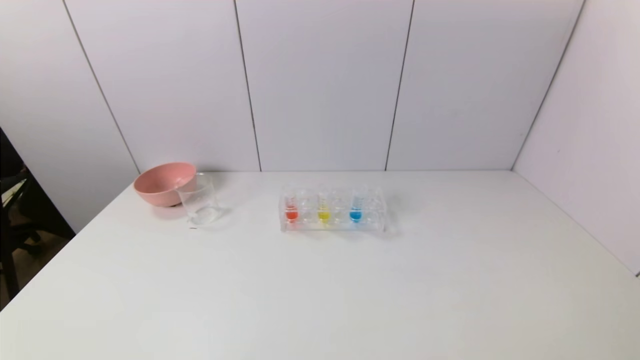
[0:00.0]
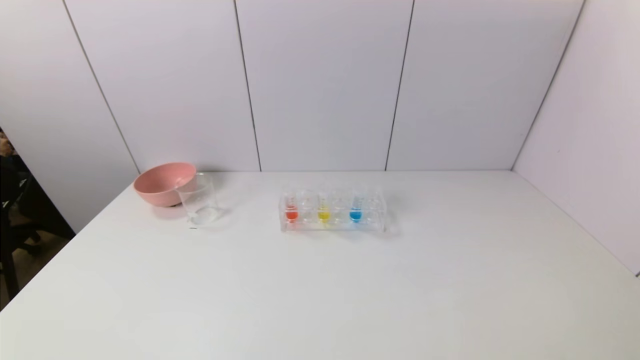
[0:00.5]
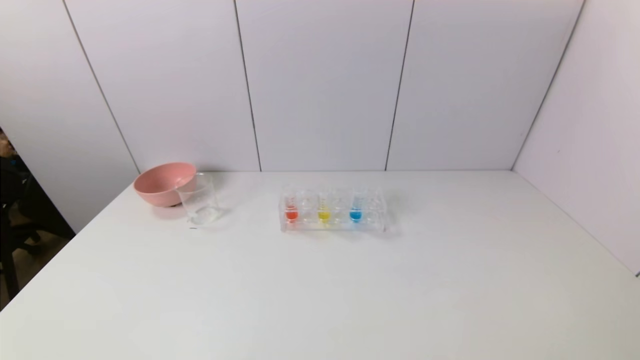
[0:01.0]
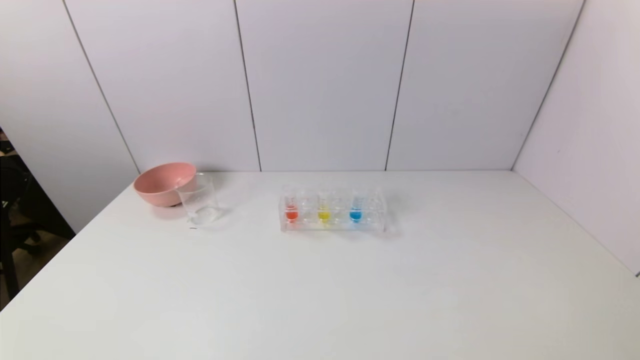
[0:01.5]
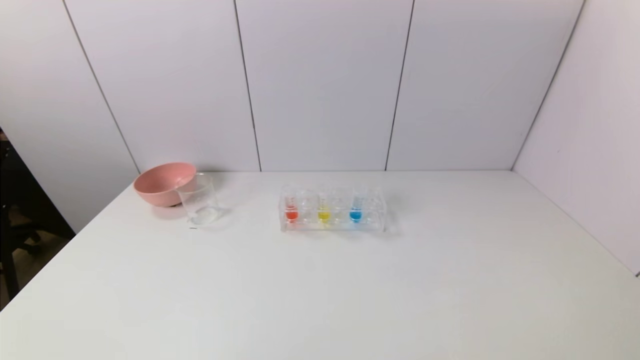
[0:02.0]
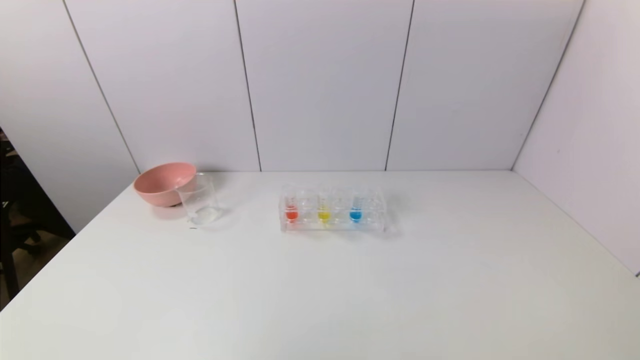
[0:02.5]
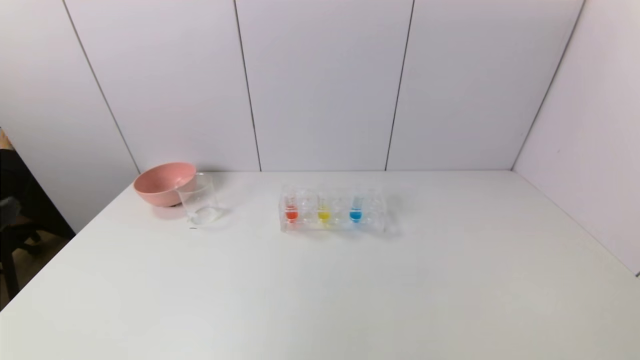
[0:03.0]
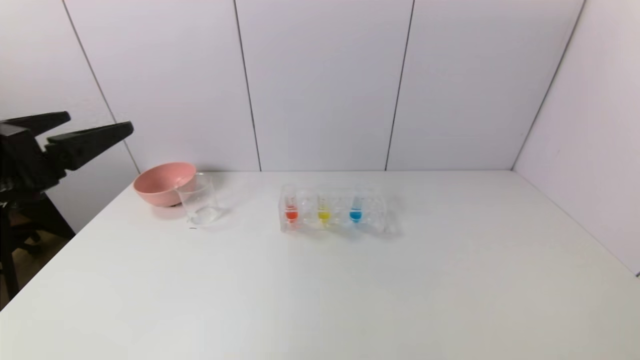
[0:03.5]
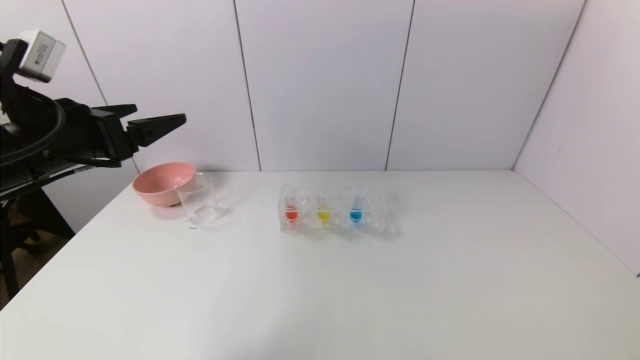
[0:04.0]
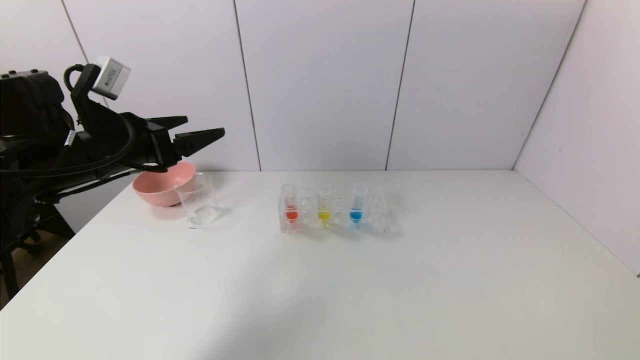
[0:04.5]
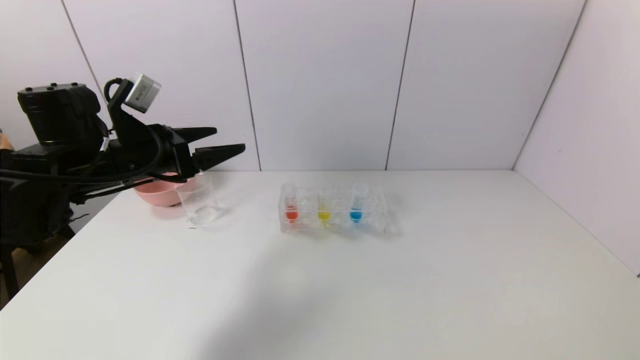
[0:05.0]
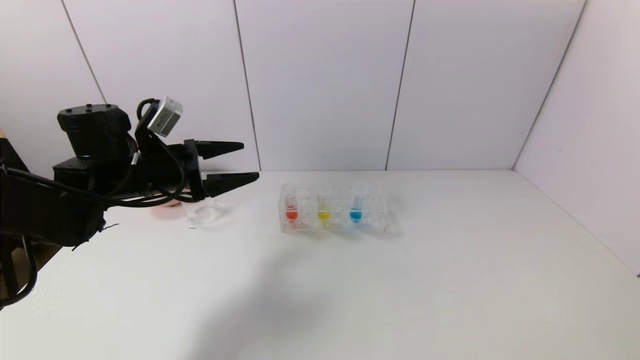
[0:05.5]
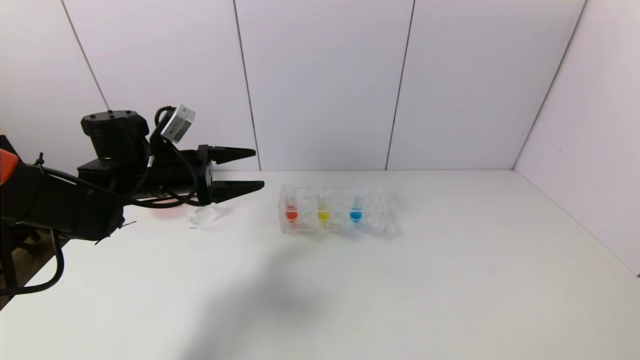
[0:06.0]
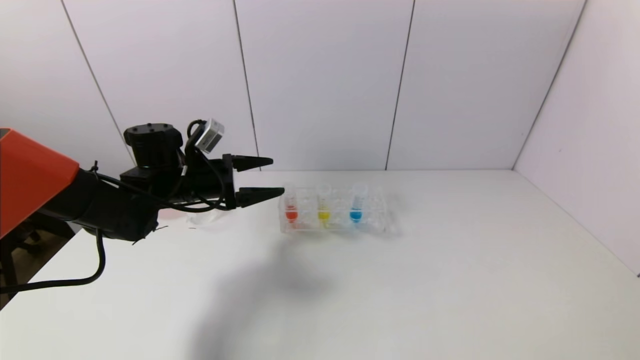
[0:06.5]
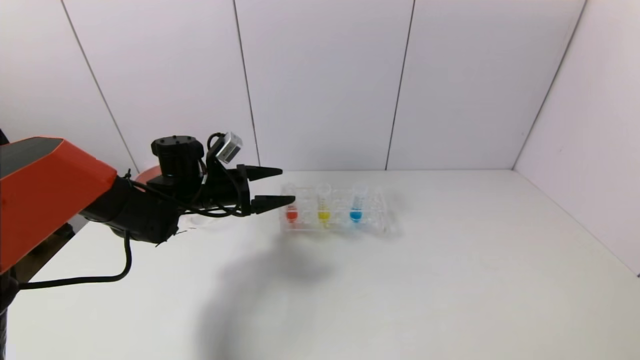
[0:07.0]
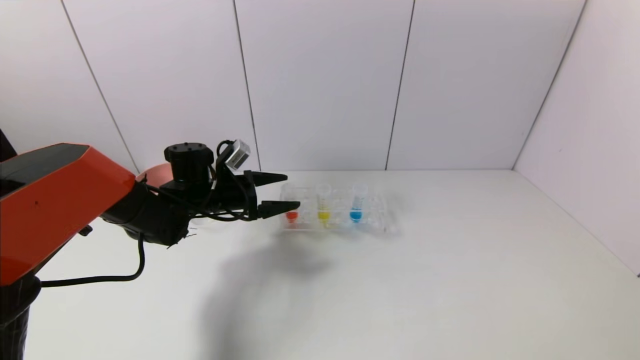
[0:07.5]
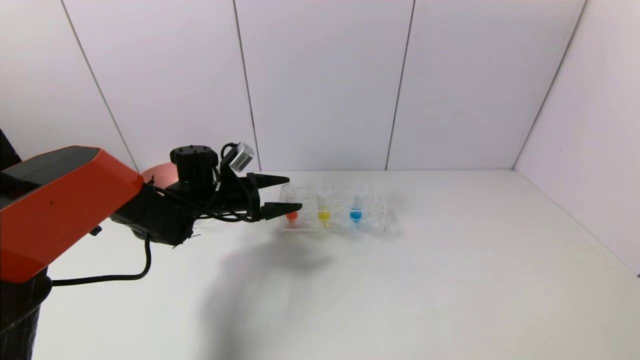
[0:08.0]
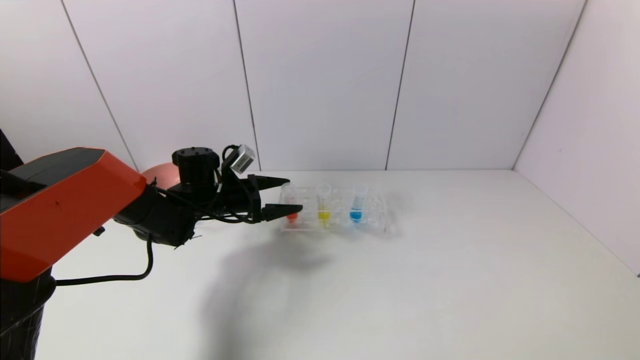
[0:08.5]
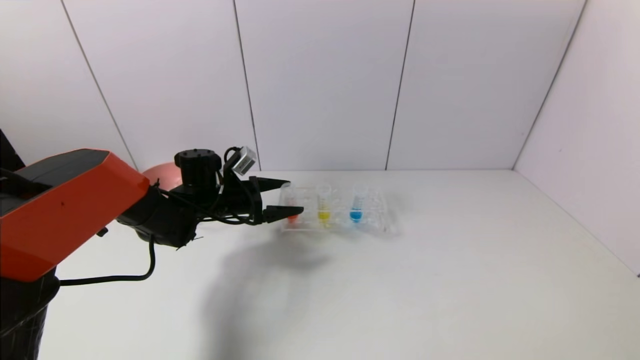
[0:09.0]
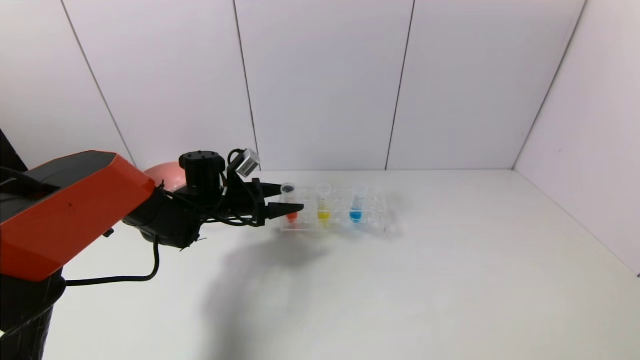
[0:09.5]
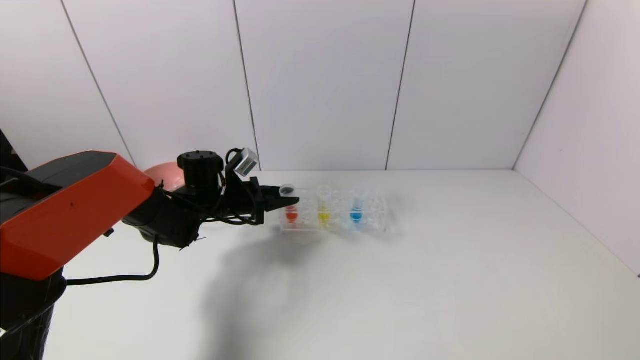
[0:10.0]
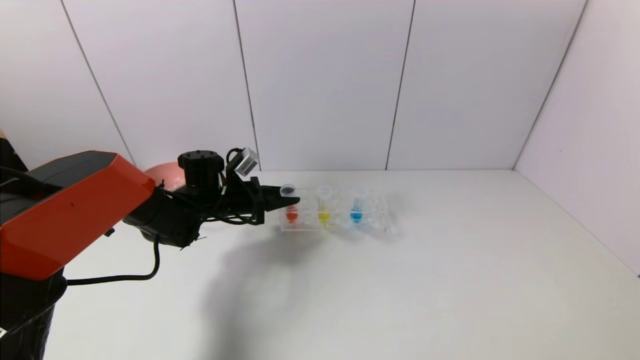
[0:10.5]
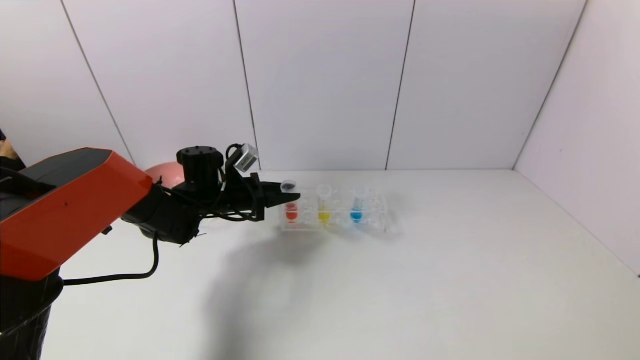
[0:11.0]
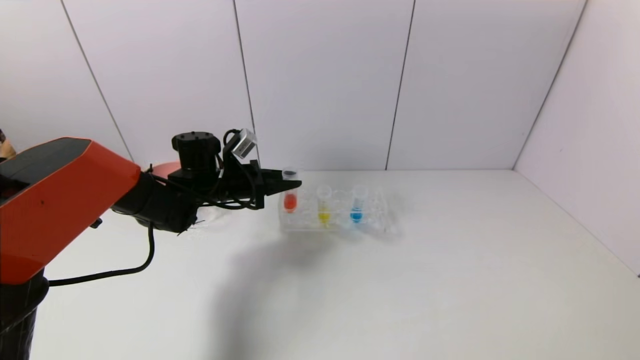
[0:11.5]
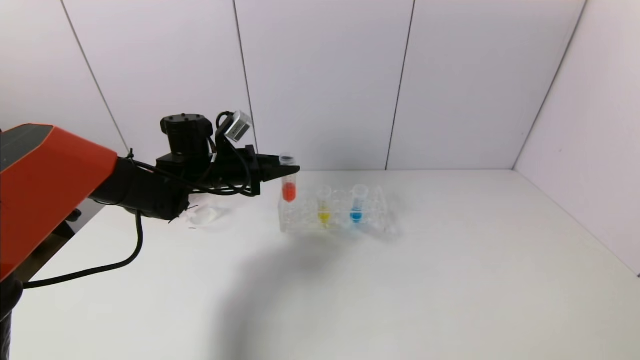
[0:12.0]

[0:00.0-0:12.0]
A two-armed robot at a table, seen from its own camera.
Task of the whole recording: pick up the test tube with red pigment and the test tube with blue pigment by grippers and pour them into the container.
Step, 0.0 to 10.0 s: Grasp the red reagent with the left gripper.
2.0 to 4.0 s: The left gripper travels forward and upward by some 35 cm.
4.0 to 6.0 s: The left gripper shifts roughly 15 cm forward and downward.
6.0 to 8.0 s: The left gripper goes roughly 10 cm downward, forward and to the right.
8.0 to 10.0 s: The left gripper closes its fingers.
10.0 to 12.0 s: The left gripper goes about 5 cm upward.

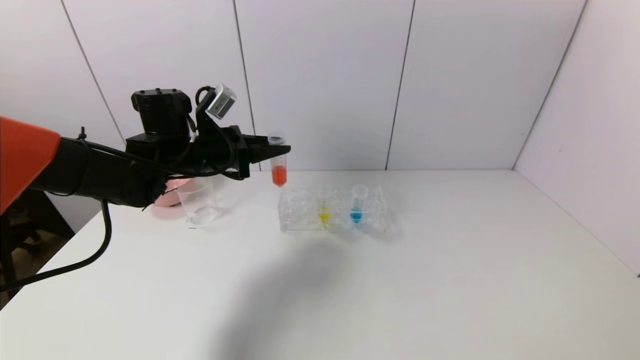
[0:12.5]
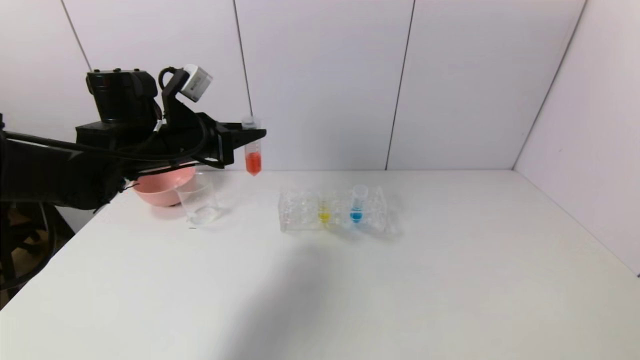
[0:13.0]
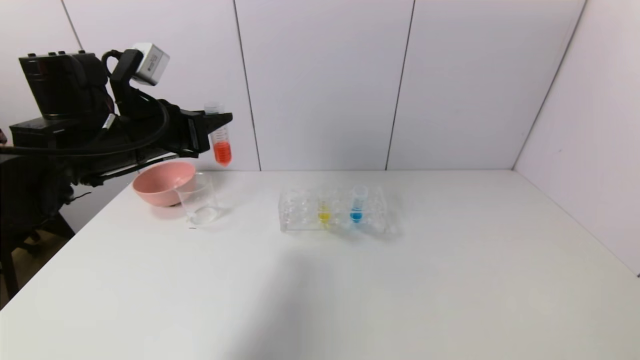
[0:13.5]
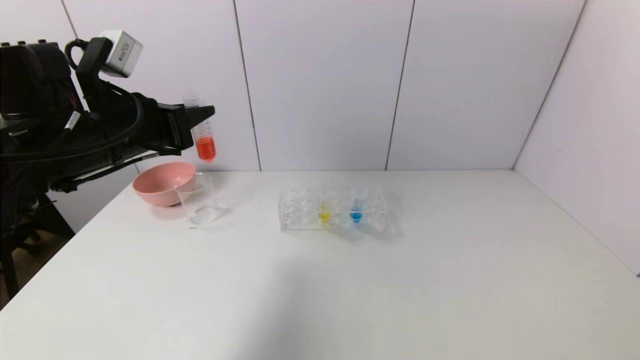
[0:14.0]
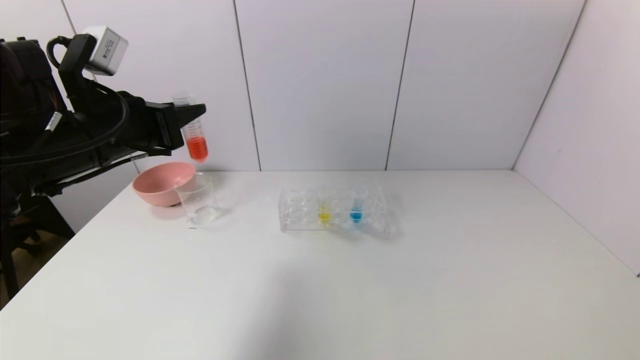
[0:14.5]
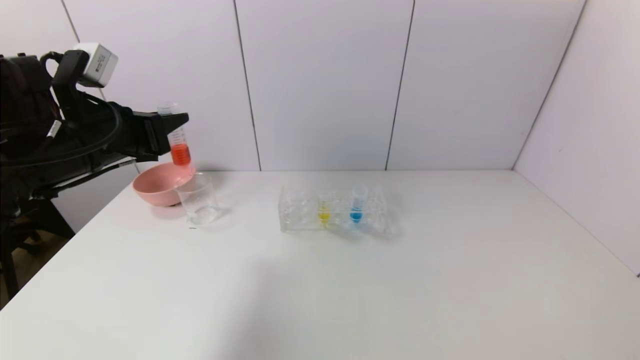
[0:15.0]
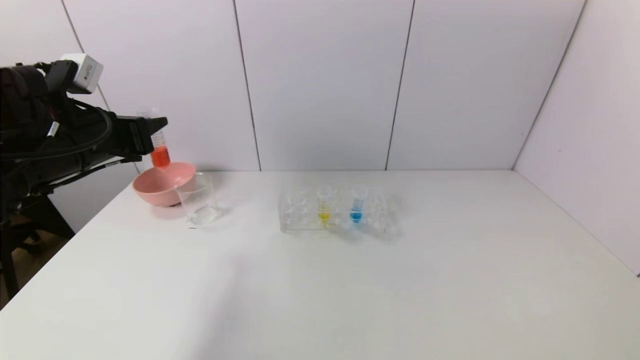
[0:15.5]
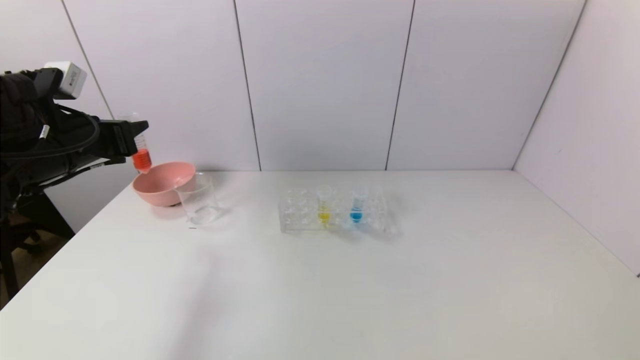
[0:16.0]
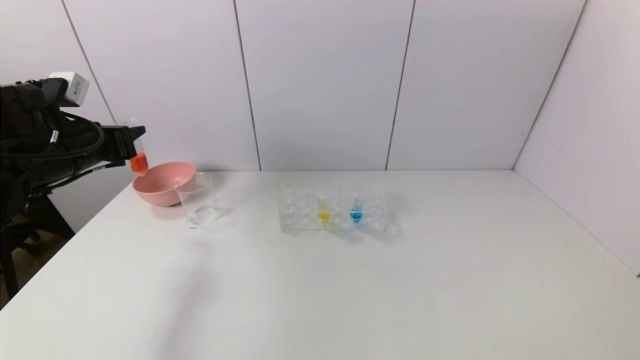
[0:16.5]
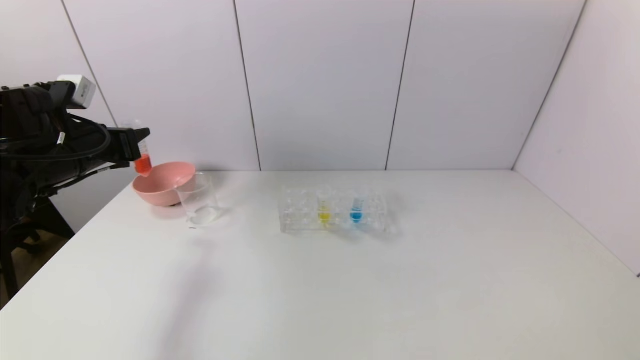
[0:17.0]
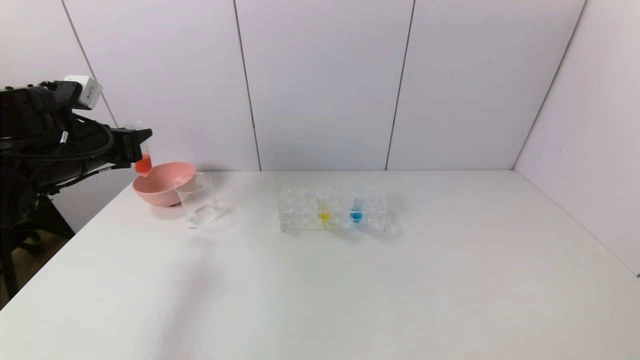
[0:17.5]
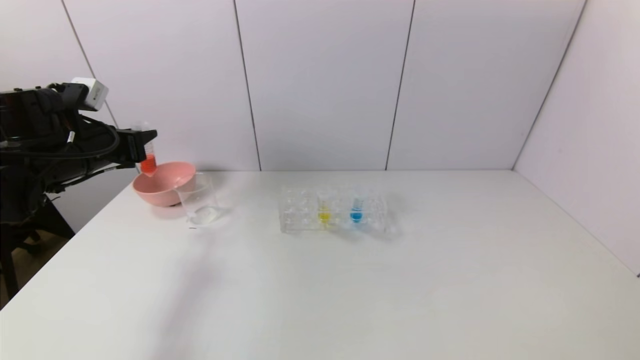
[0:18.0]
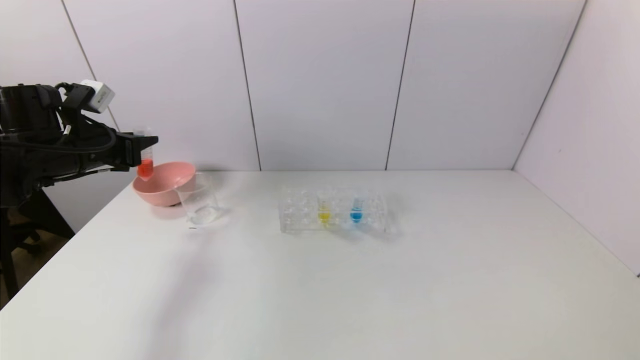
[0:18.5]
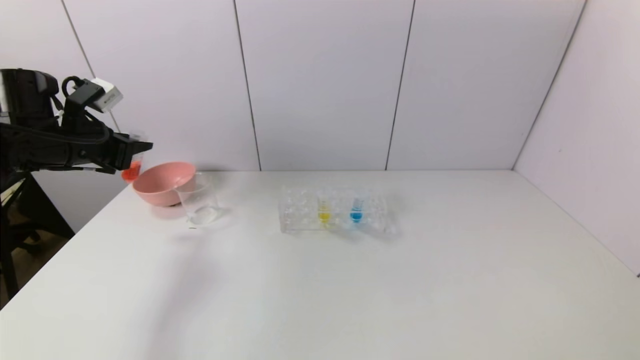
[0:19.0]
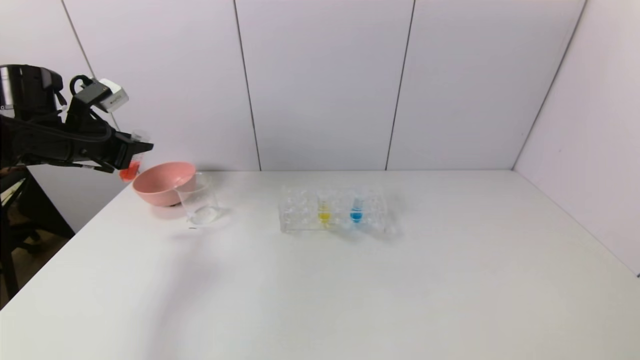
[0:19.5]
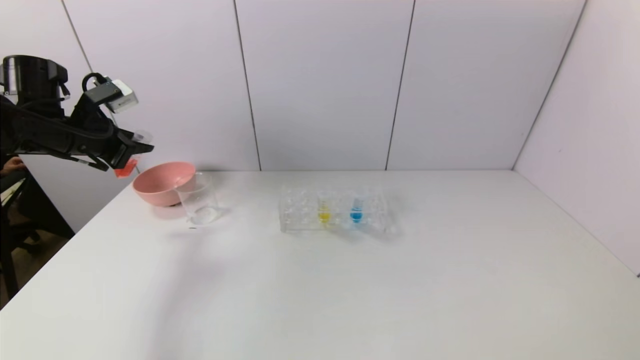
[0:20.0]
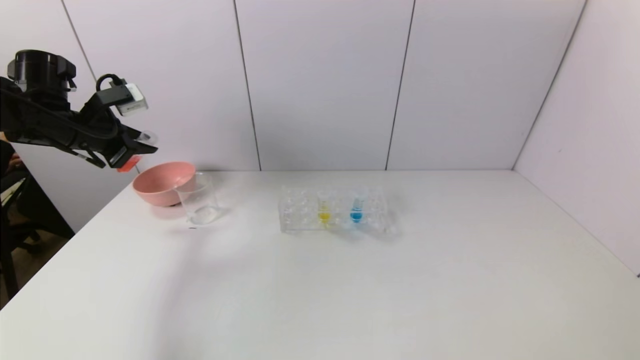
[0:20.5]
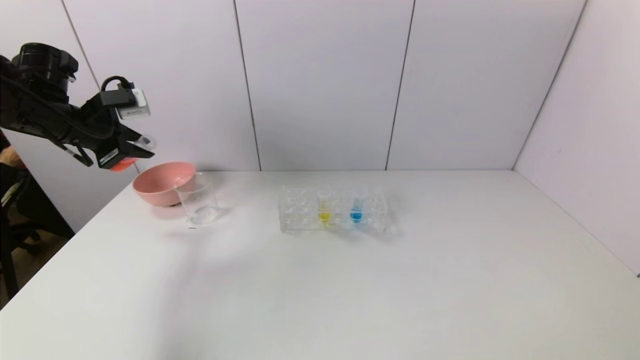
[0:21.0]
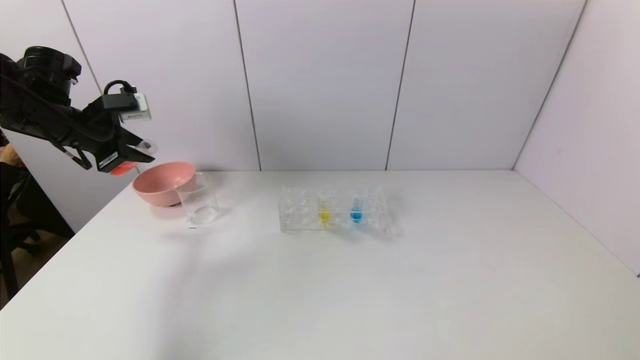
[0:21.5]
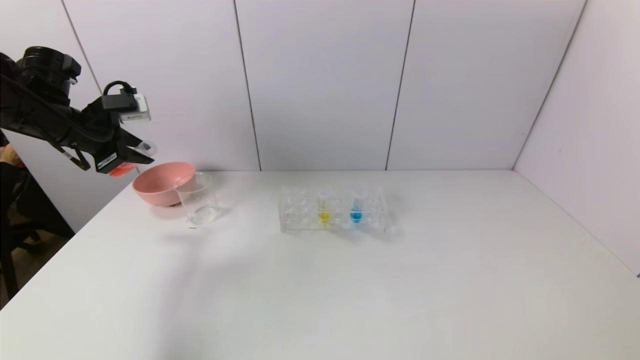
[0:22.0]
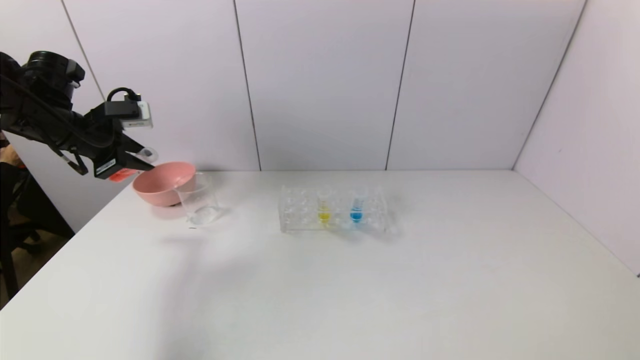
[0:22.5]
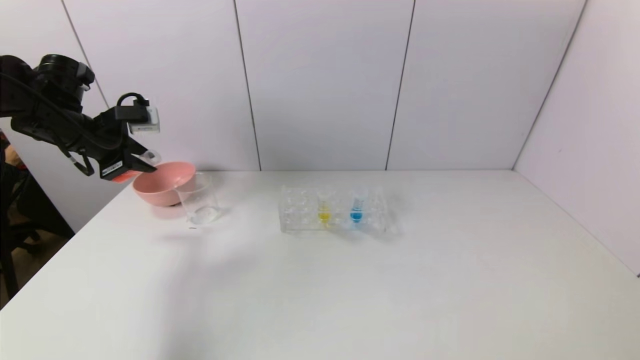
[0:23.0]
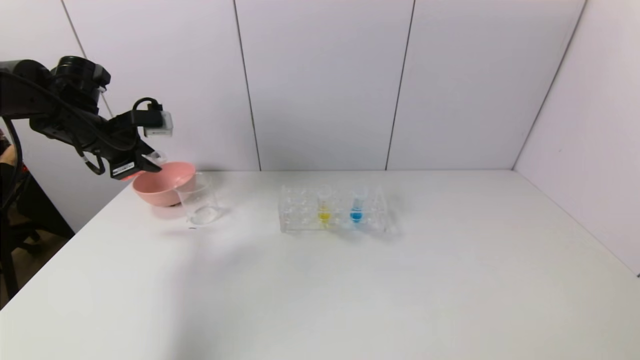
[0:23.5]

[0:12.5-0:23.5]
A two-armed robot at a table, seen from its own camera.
Task of the whole recording: pick up the test tube with red pigment and the test tube with blue pigment by grippers and pour them into the container.
12.5 to 14.5 s: The left gripper shifts approximately 15 cm backward and upward.
14.5 to 16.0 s: The left gripper goes roughly 10 cm to the left.
16.0 to 18.0 s: The grippers stay close to where they were, moving slightly.
21.5 to 23.5 s: The grippers make only small movements.
